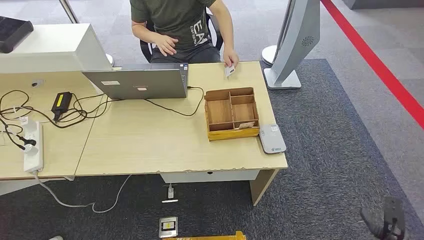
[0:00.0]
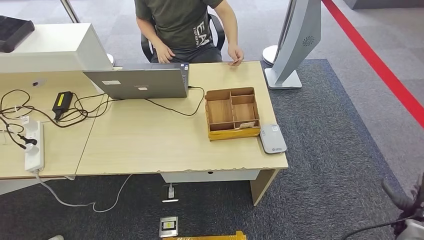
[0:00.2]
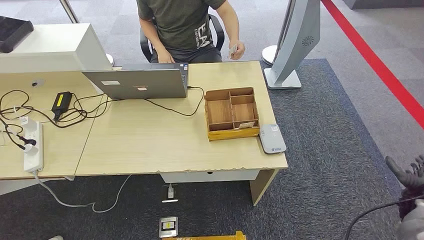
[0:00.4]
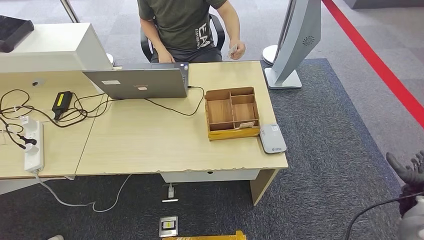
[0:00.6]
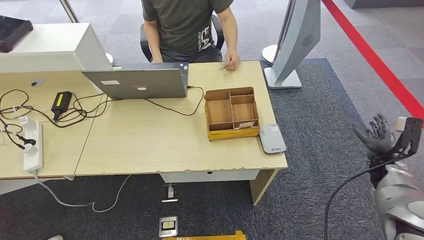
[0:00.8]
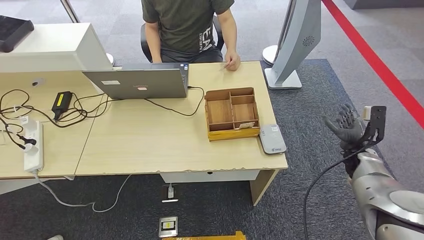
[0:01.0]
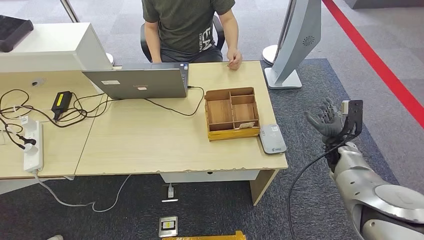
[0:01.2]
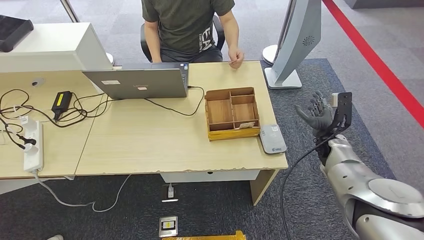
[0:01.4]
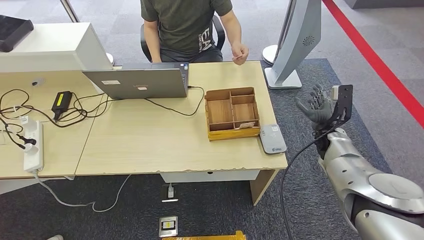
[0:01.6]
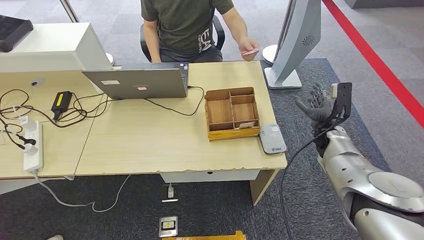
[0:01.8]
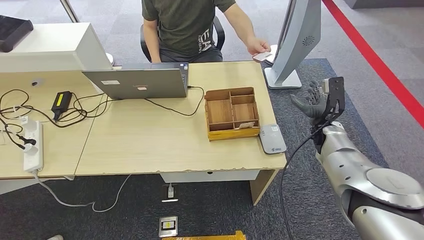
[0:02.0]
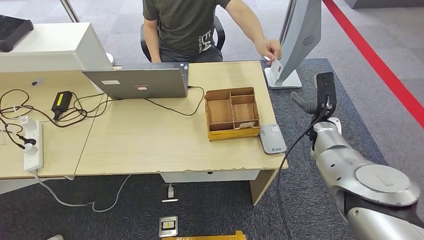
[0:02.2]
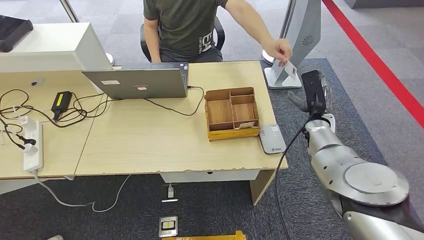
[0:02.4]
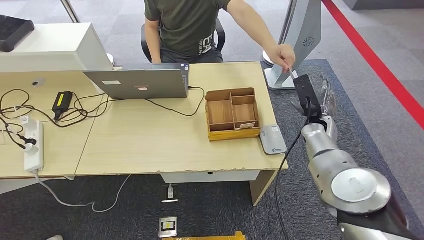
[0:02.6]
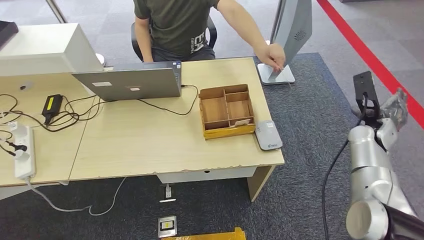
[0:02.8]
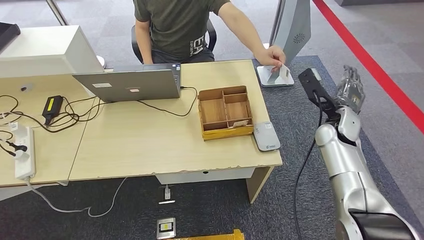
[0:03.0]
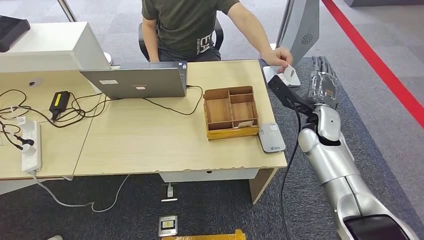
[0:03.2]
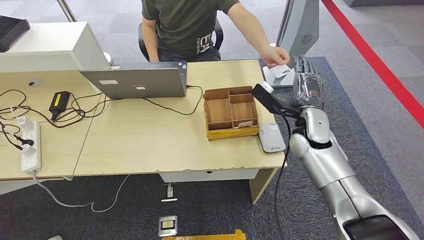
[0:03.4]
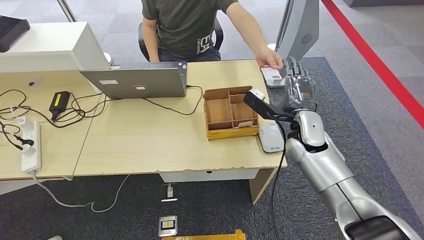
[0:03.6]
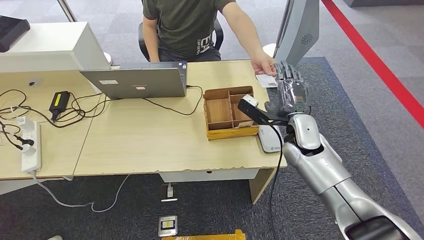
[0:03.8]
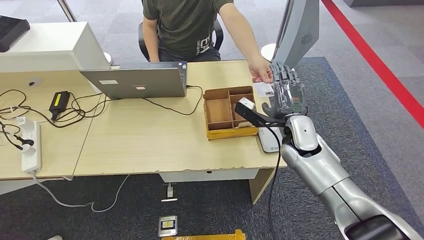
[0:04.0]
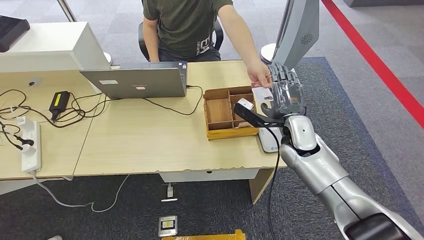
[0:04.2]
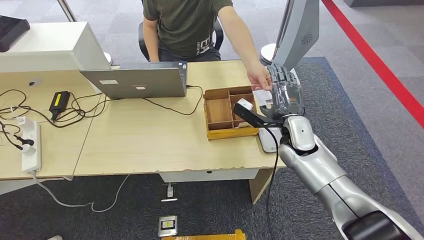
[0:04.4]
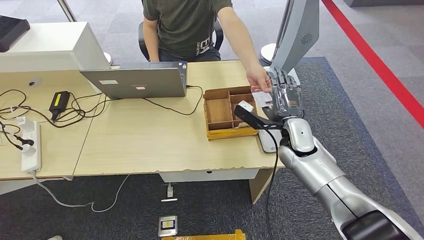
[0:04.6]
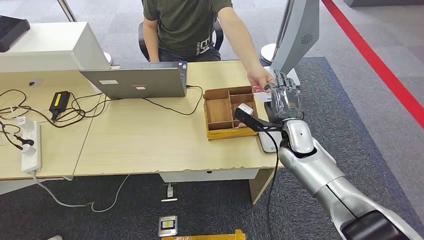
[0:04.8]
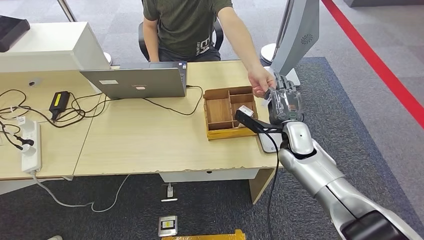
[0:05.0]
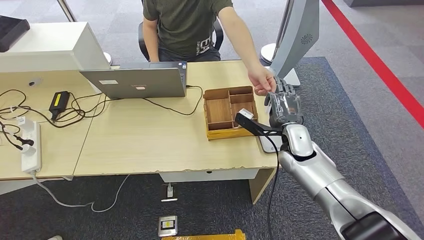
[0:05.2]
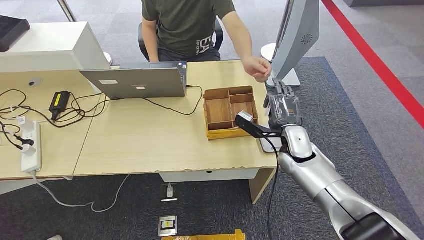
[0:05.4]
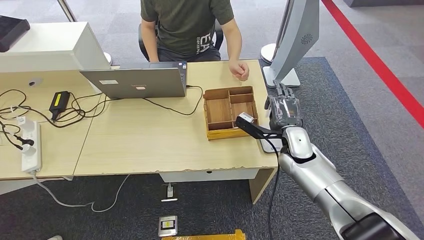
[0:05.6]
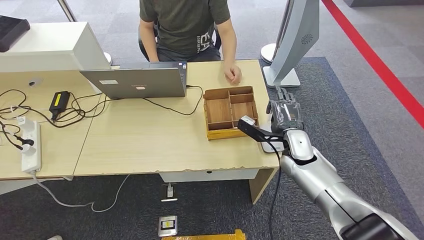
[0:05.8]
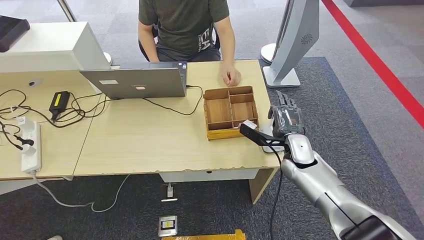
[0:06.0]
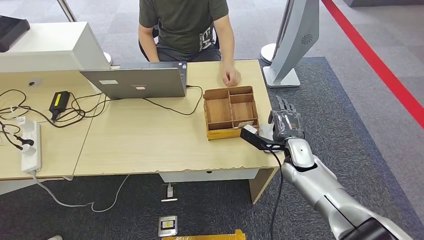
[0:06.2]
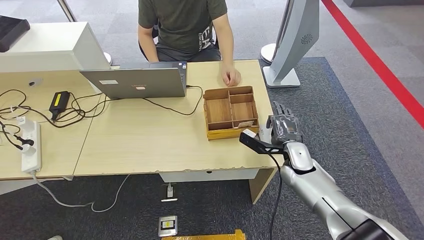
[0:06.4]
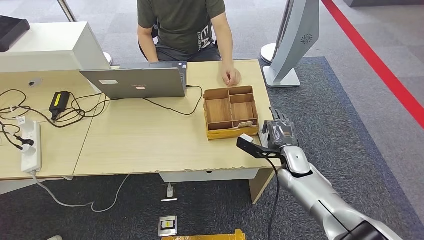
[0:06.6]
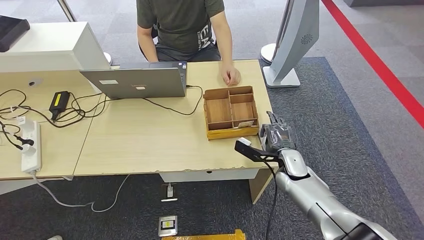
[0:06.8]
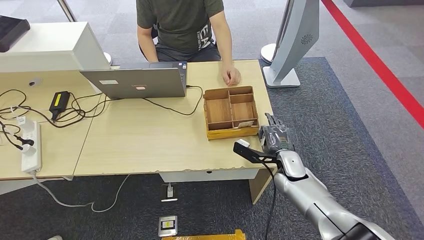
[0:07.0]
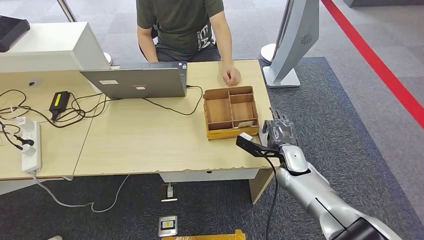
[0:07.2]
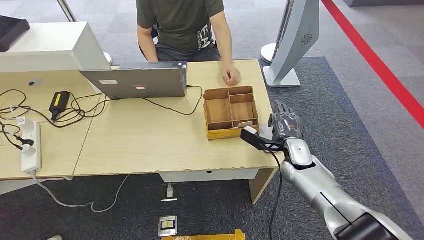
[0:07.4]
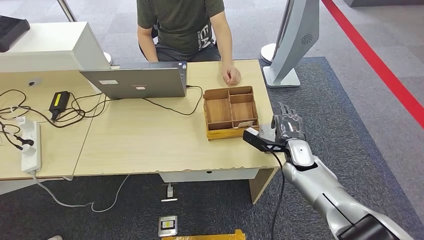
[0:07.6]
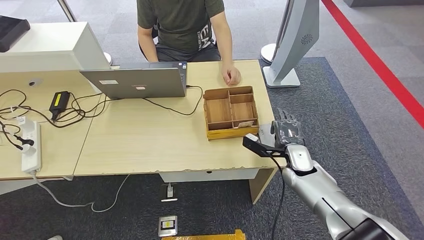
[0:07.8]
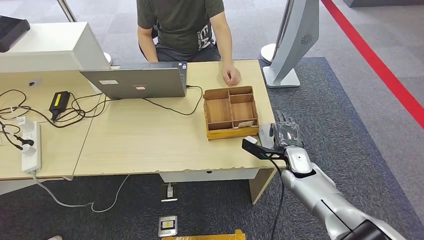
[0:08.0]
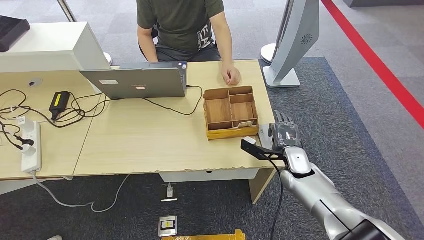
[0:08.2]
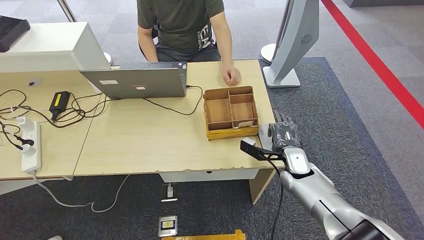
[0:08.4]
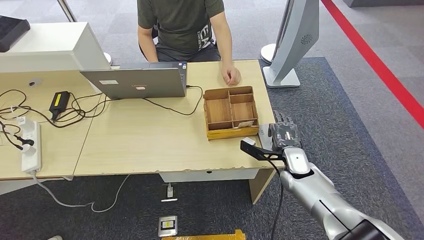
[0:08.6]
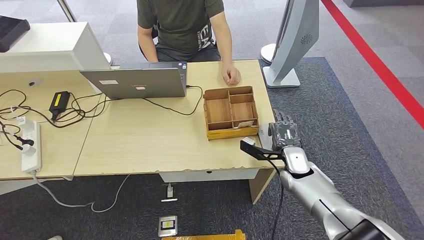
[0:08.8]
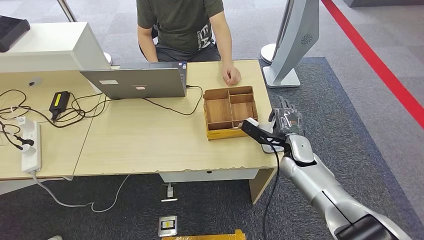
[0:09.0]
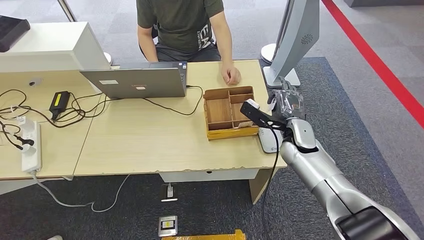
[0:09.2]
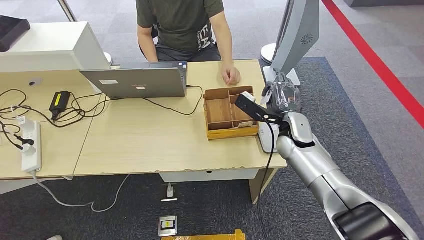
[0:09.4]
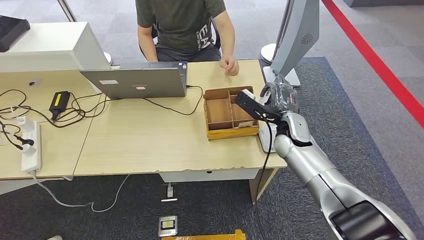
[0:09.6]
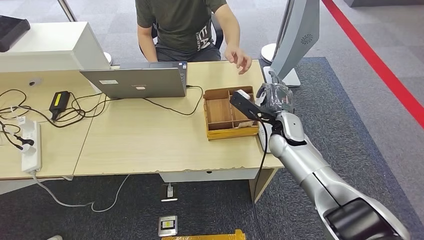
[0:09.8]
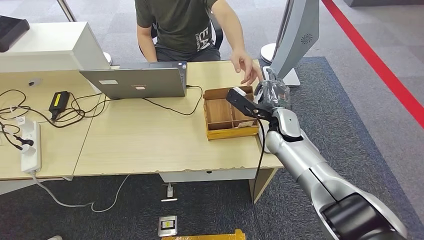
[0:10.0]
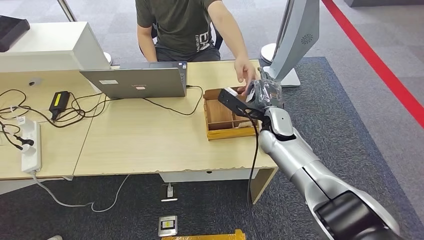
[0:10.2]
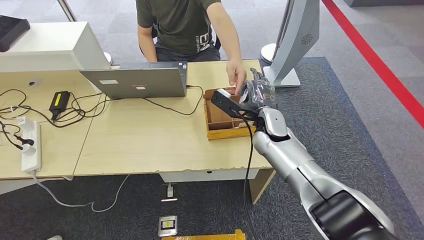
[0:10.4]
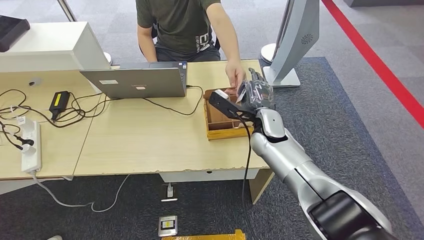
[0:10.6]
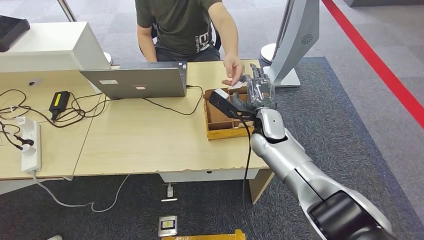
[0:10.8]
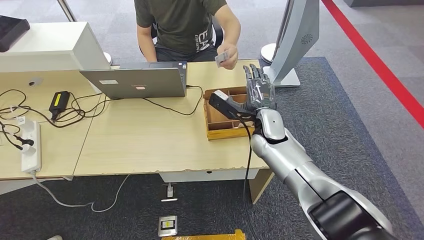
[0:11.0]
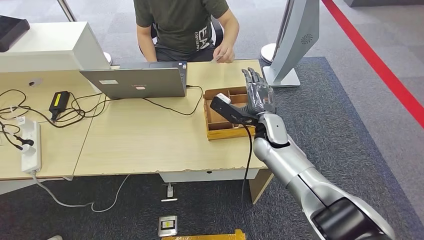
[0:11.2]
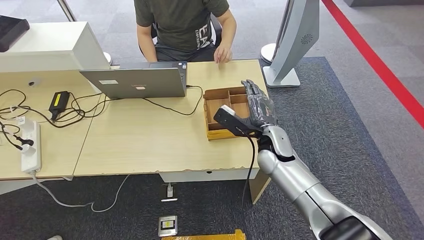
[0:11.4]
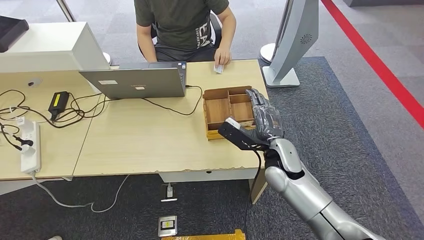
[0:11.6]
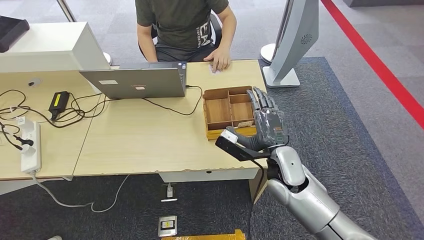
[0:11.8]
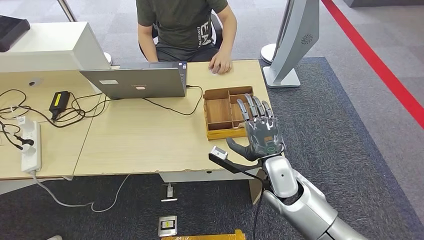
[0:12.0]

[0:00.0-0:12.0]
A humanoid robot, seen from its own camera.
Step, 0:00.0 to 0:05.6: Take the ID card from the person's hand.
Step, 0:05.8 to 0:09.4: Place the ID card on the card reader.
Step, 0:09.6 to 0:11.8: Hand the ID card to the person.
0:04.4 to 0:06.0: The right hand is displaced downward by roughly 5 cm.
0:06.0 to 0:09.0: The hands stay close to where they were, moving slightly.
0:09.0 to 0:10.4: The right hand shifts some 10 cm to the left and upward.
0:10.4 to 0:12.0: The right hand heads backward, covering roughly 10 cm.

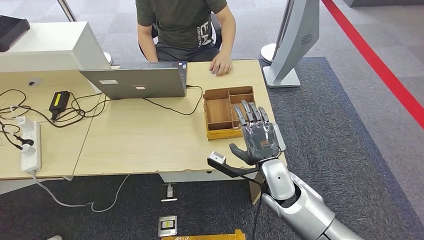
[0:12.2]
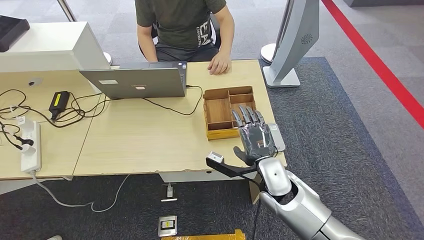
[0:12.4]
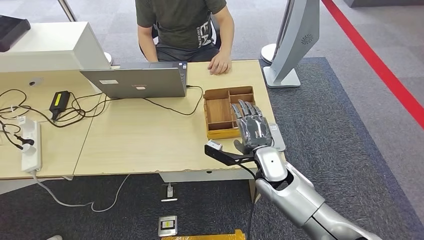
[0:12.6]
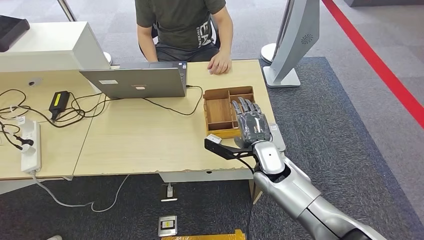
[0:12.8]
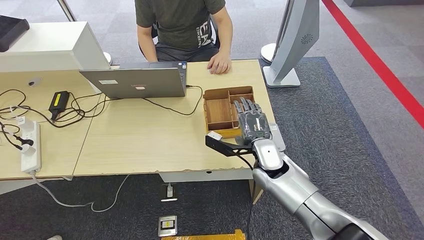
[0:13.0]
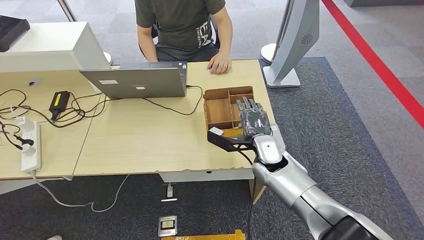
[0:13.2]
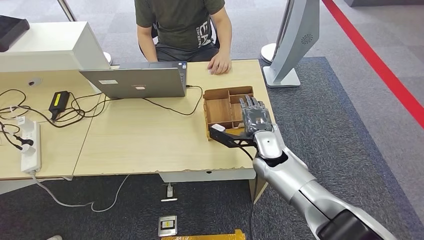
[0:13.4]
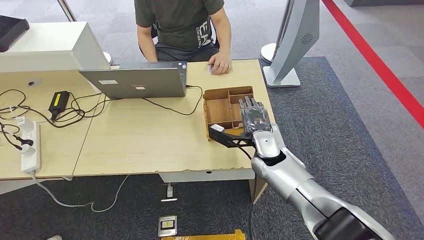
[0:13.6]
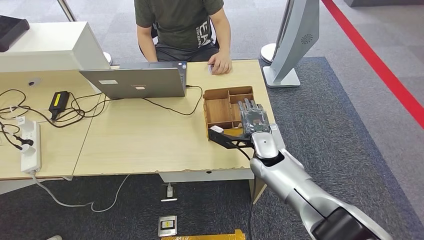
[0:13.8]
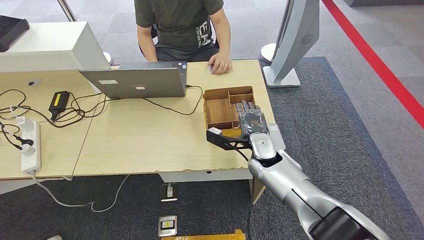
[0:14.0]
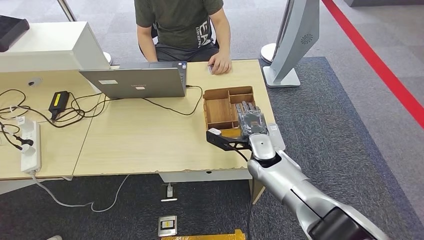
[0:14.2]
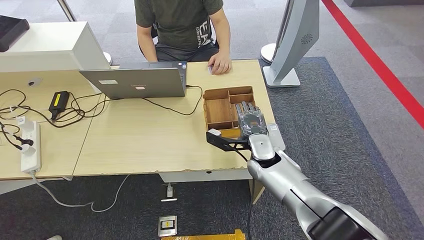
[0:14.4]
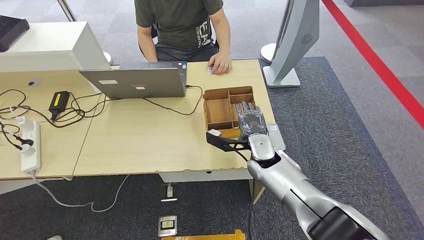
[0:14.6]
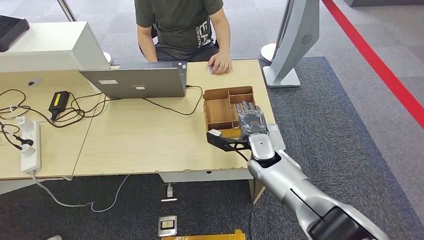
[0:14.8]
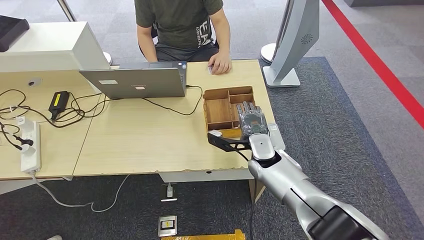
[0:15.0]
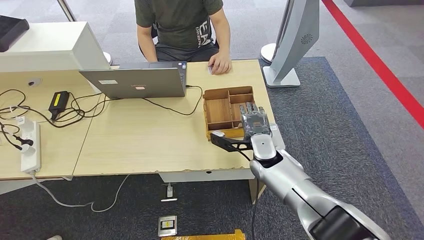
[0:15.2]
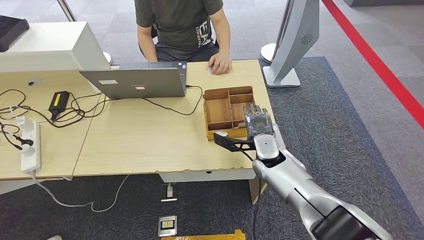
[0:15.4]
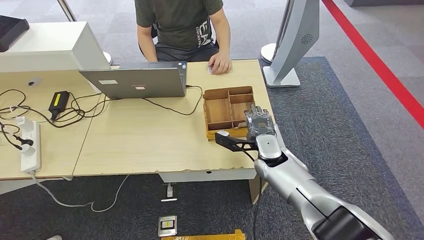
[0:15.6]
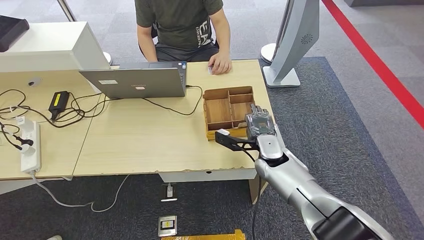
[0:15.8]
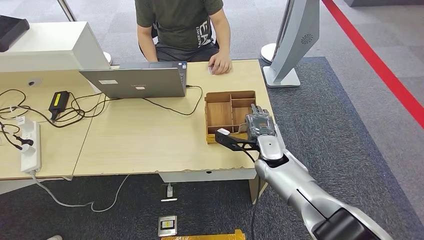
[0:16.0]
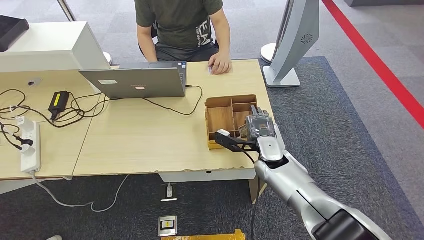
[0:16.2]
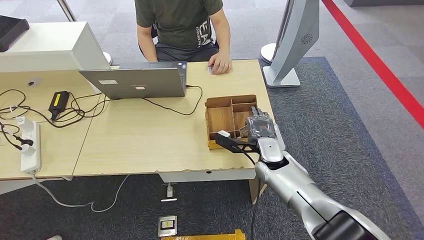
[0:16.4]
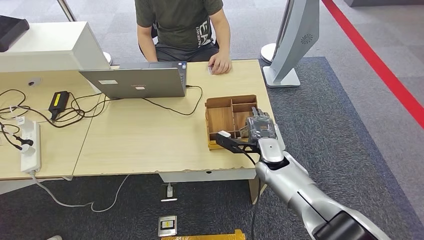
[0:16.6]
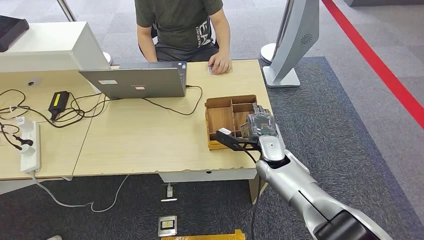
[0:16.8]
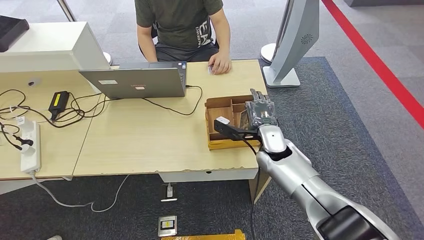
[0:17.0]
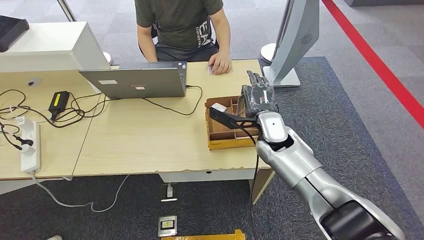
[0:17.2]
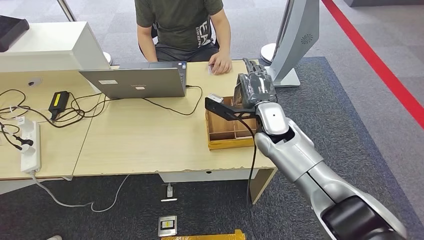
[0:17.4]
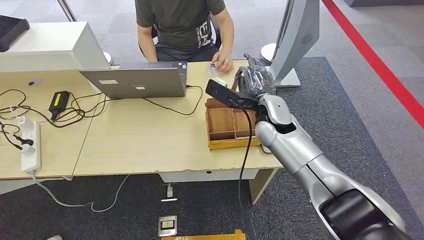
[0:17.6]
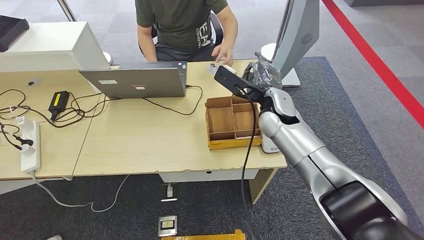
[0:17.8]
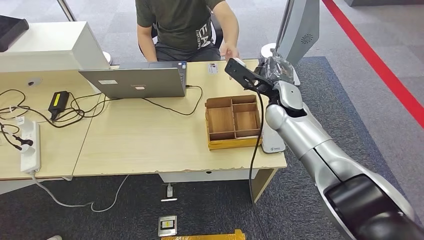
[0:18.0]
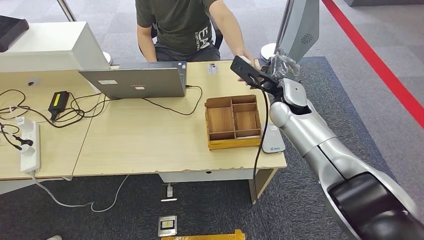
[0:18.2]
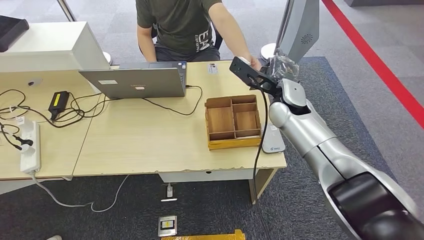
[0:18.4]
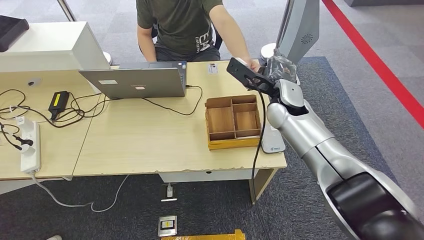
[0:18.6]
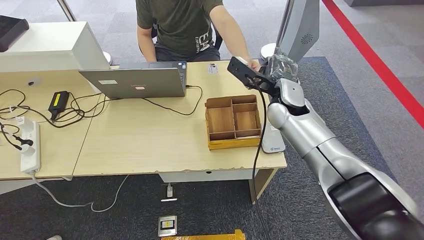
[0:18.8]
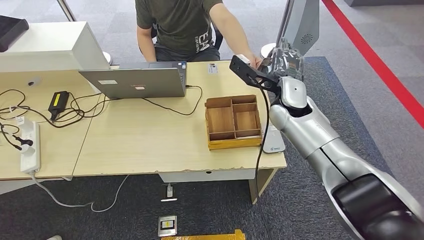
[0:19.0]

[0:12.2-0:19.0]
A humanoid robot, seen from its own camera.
Step, 0:12.2 to 0:16.2: Pick up the room key from the key card box.
0:12.2 to 0:13.6: The right hand goes approximately 10 cm forward.
0:13.6 to 0:16.2: There are only small adjustments of the hands.
0:16.2 to 0:17.6: The right hand moves upward, about 15 cm.
0:17.6 to 0:19.0: The right hand ends up about 5 cm from where it was.
